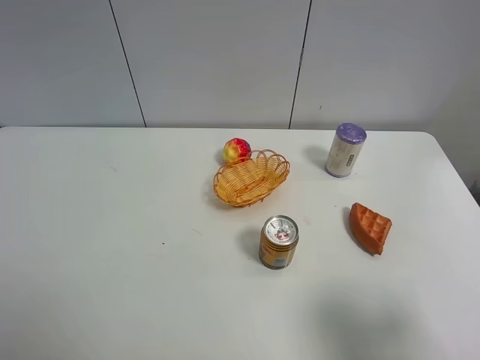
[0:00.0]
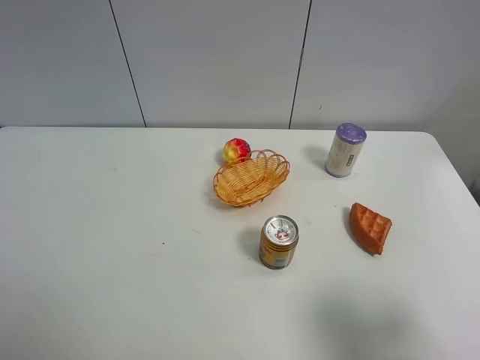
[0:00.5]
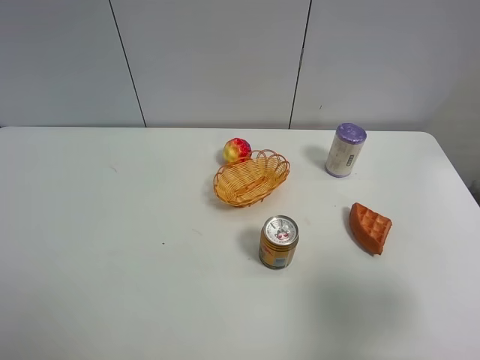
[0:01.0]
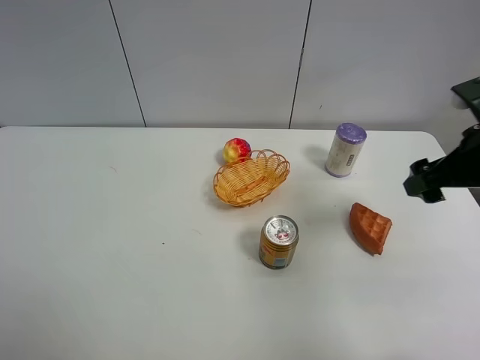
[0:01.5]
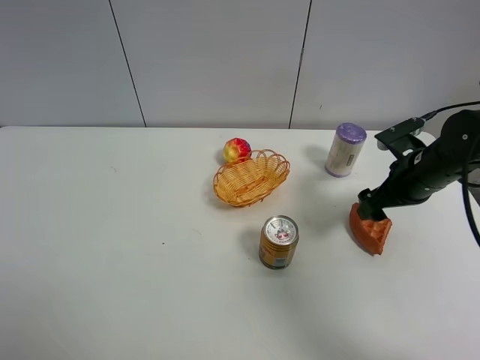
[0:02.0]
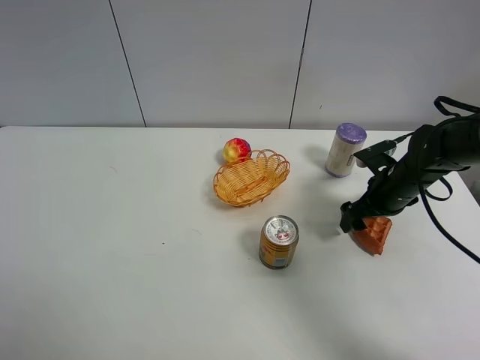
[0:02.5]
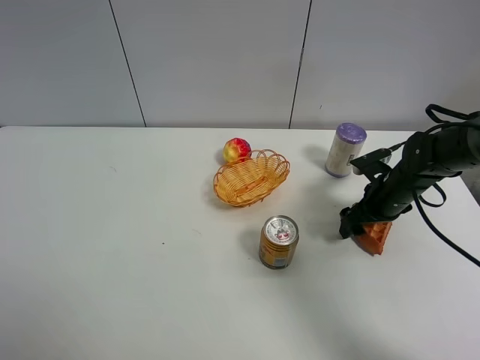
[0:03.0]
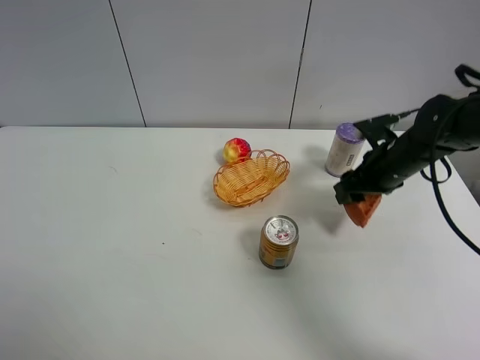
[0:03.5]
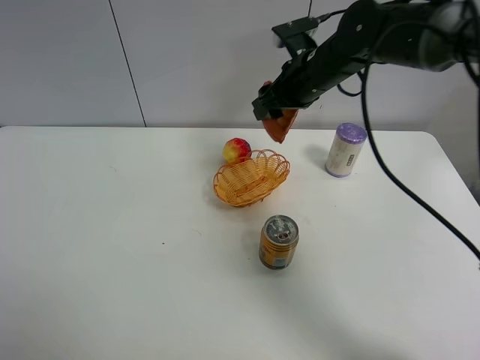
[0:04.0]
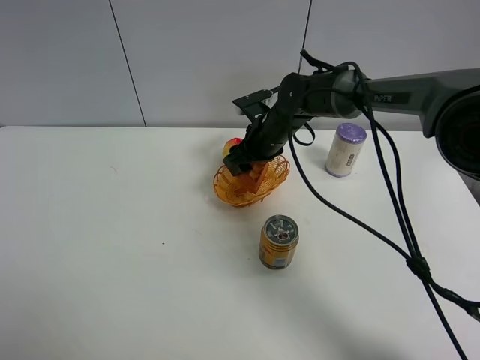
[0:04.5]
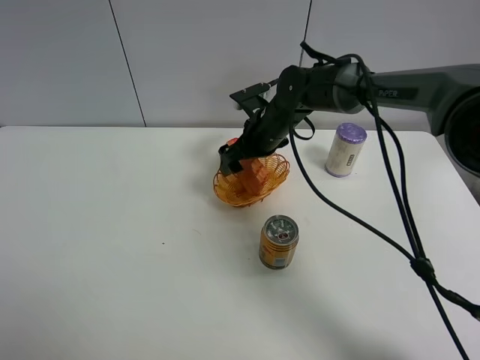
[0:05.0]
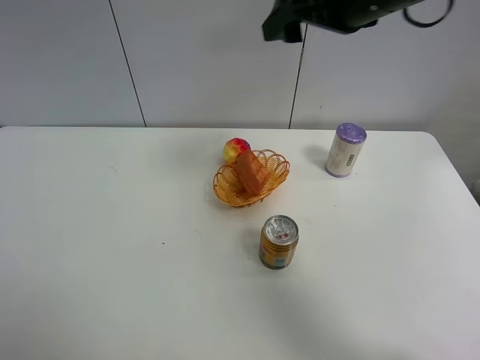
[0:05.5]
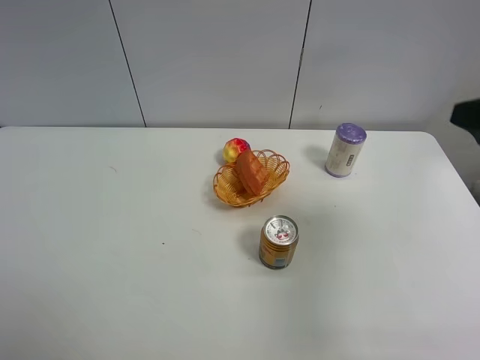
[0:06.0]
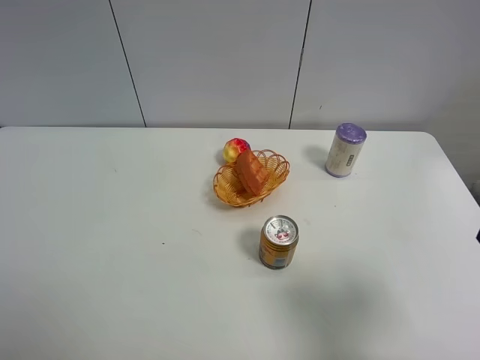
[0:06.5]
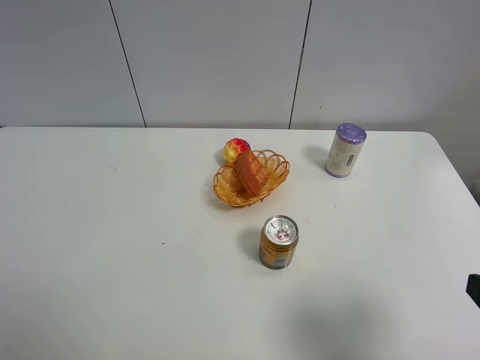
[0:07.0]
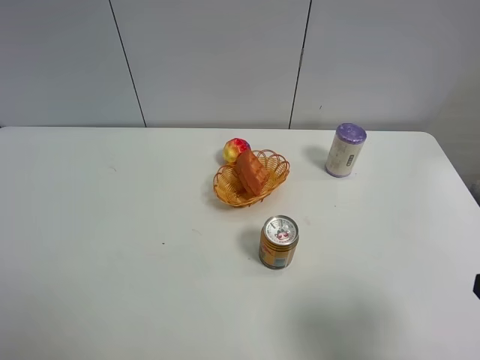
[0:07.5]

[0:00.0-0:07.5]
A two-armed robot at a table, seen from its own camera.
Task of the whole recording: Put the bakery in the basket.
Step, 0:00.0 to 0:03.0: Grasp the bread with right gripper.
Step, 0:03.5 to 0:05.0: Place the bread in the basket with right gripper.
0:00.0 to 0:02.0: The right gripper heads forward, covering approximately 30 cm.
0:02.0 to 0:04.0: The right gripper goes approximately 20 cm to the left, forward and upward, and closes up.
0:04.0 to 0:05.5: The right gripper moves upward and backward, approximately 15 cm, and opens up.
0:05.5 to 0:07.5: The right gripper heads backward and to the right, covering approximately 35 cm.
